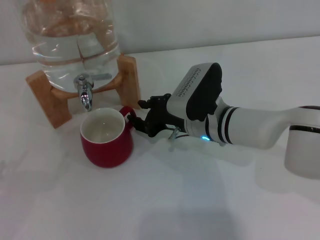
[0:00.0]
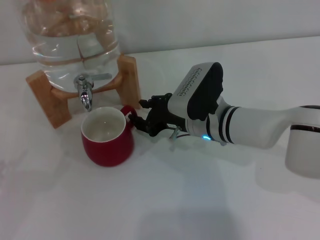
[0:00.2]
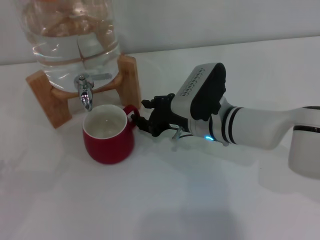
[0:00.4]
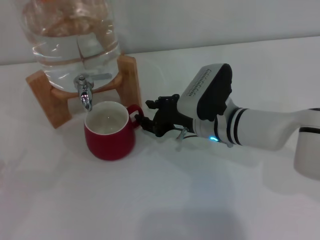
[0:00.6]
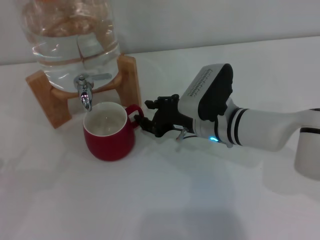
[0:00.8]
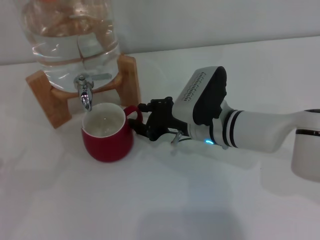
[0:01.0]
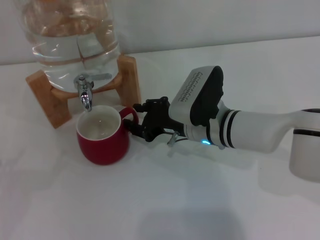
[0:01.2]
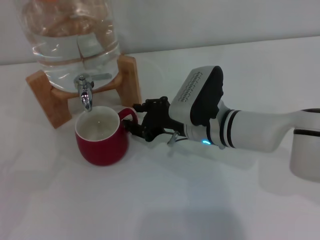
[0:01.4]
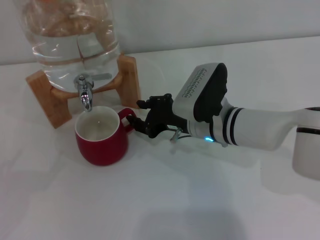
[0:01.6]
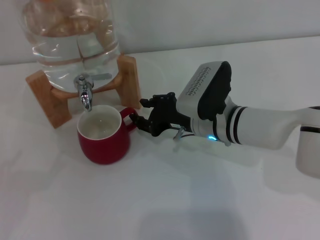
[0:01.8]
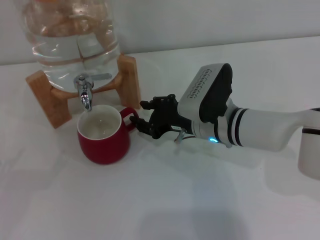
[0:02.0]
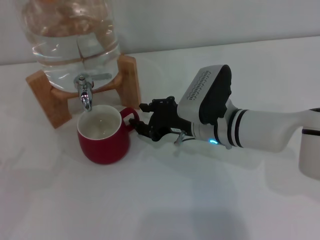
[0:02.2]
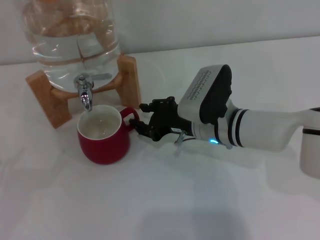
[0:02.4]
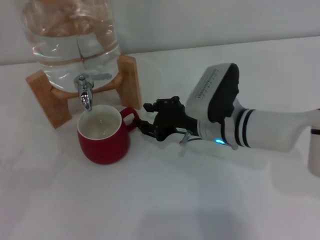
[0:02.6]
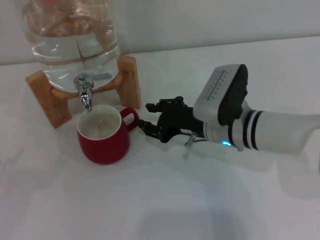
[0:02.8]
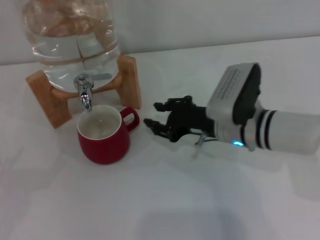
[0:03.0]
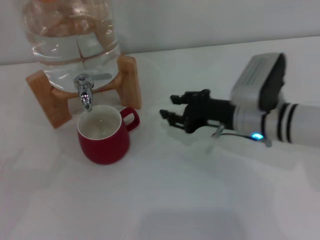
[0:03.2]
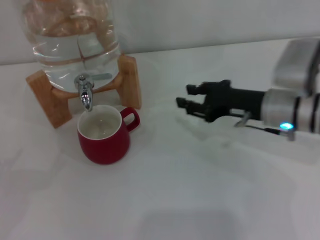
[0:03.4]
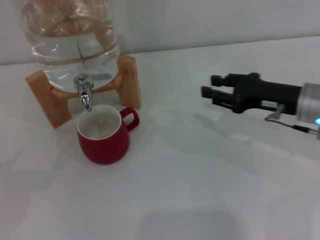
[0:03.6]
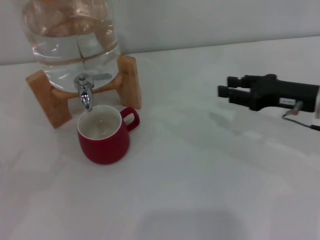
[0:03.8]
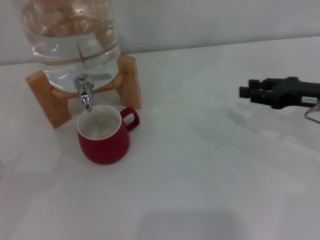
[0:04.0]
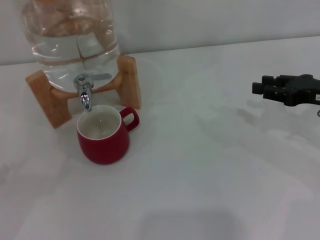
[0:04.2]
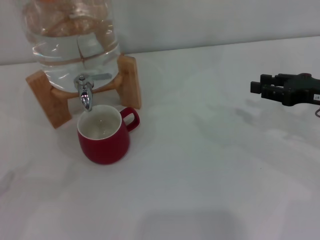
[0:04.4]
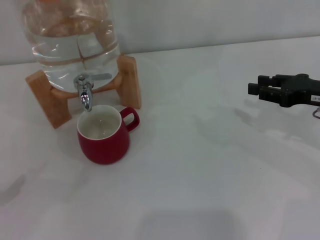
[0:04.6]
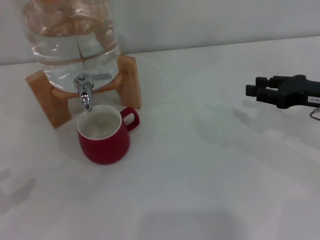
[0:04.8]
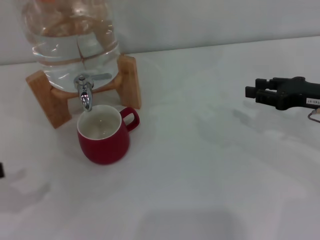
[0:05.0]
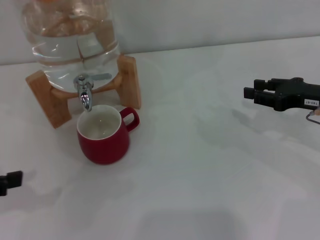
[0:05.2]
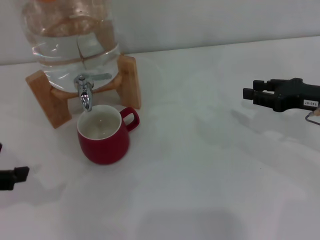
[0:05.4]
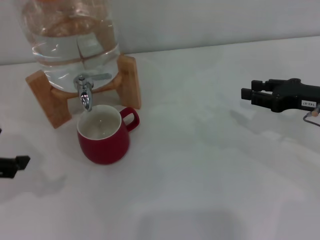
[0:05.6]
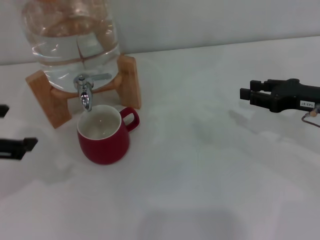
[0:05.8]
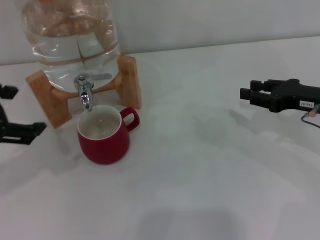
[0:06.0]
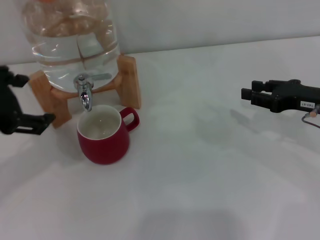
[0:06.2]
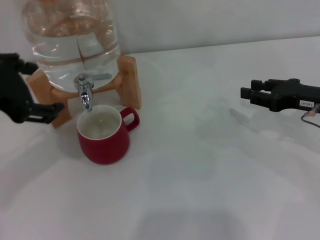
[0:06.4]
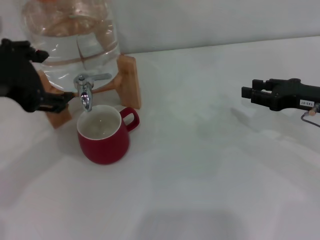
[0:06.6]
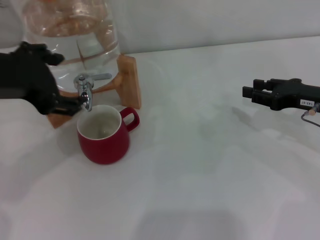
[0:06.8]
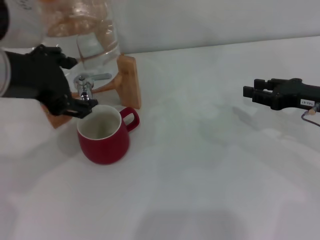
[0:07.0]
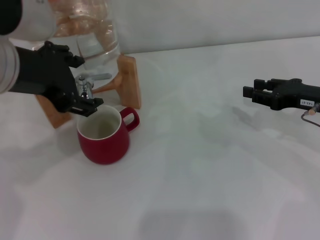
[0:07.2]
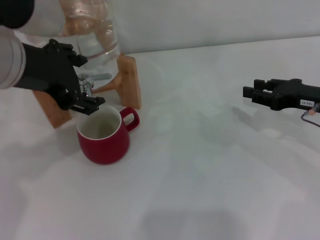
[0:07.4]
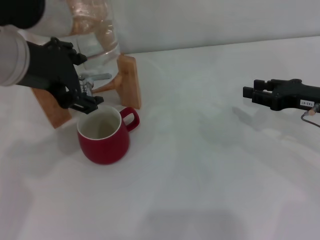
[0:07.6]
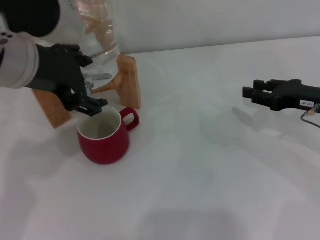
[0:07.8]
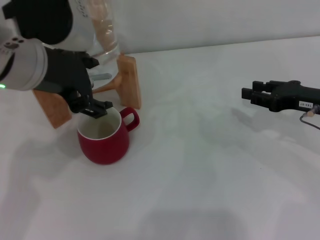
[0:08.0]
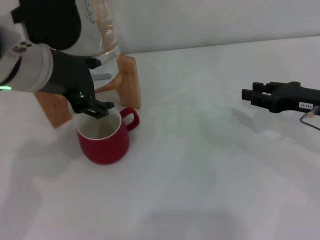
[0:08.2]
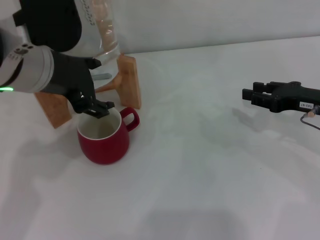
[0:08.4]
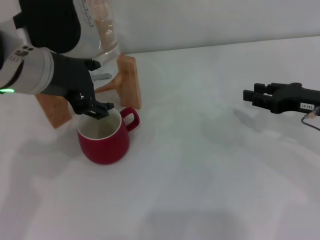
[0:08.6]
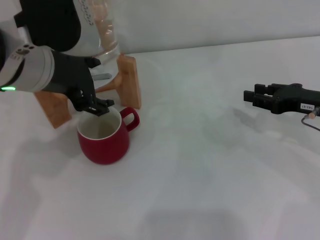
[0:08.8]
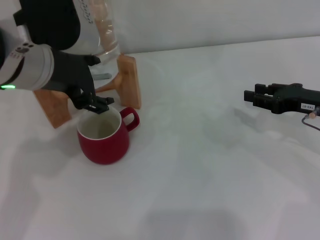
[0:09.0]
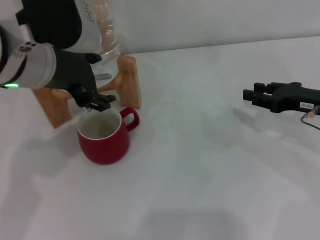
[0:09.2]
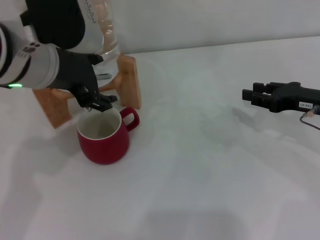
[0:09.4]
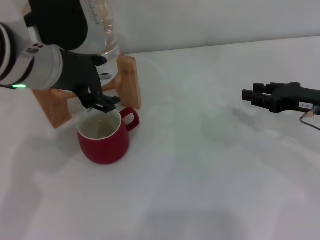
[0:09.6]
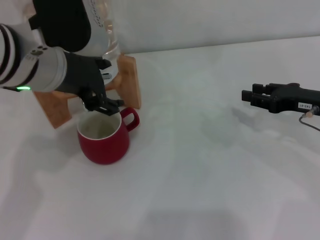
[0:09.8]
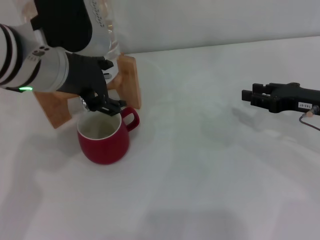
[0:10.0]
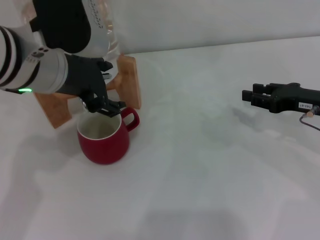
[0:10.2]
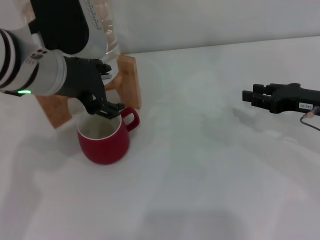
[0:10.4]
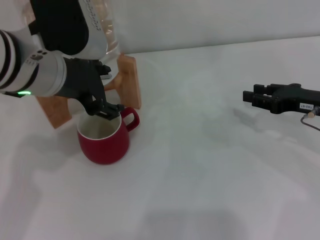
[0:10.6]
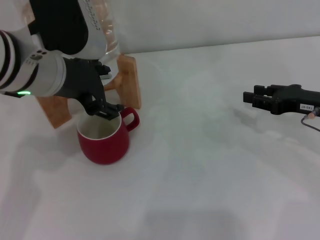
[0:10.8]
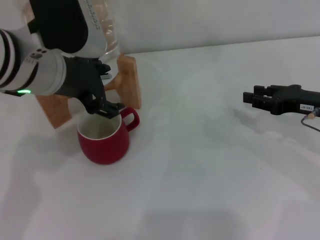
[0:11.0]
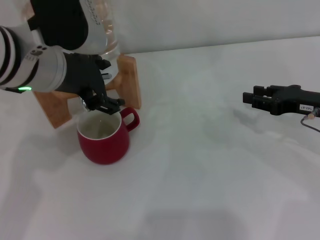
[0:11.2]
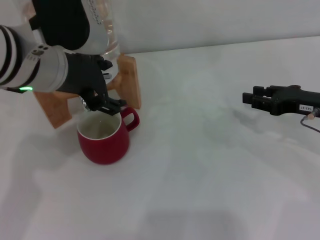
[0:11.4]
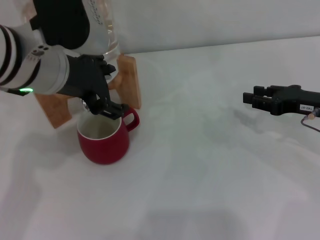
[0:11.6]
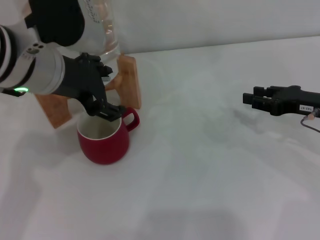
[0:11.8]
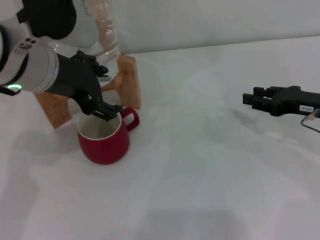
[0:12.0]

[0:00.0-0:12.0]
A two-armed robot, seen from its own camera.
Task of the whole recording: the right gripper pick up the red cup and place it horizontally under the faucet, the left gripper turn on the faucet to fill the cup, and then turn off the faucet.
Step, 0:00.0 to 0:03.0: Move the cup beneath the water dispenser nozzle with the right gripper.
0:00.0 to 0:03.0: The grippers make only small movements.
0:03.0 to 0:04.4: The right gripper goes approximately 20 cm to the right.
0:04.4 to 0:06.0: The left gripper shifts approximately 25 cm upward and to the right.
0:06.0 to 0:07.6: The left gripper heads to the right and forward, covering roughly 10 cm.
0:07.6 to 0:10.4: The grippers make only small movements.
0:10.4 to 0:12.0: The two grippers keep their place.

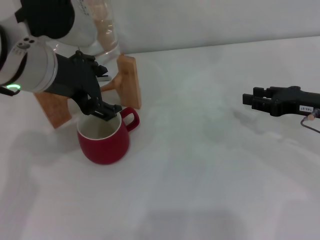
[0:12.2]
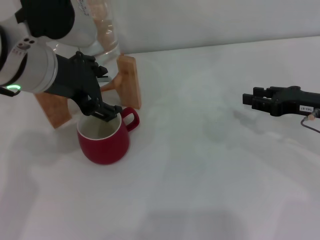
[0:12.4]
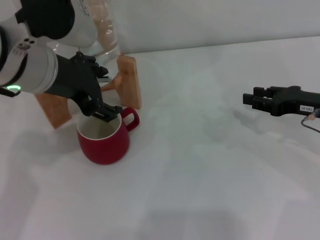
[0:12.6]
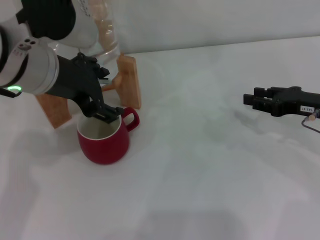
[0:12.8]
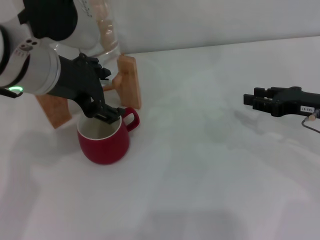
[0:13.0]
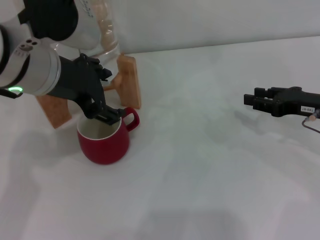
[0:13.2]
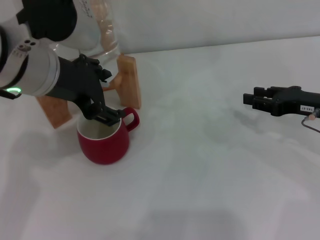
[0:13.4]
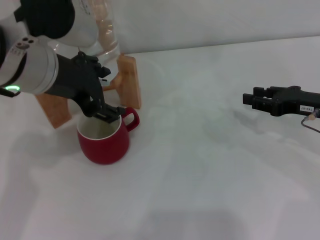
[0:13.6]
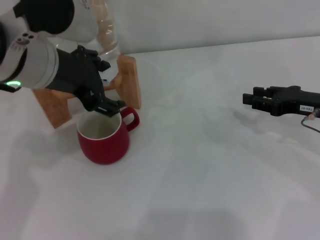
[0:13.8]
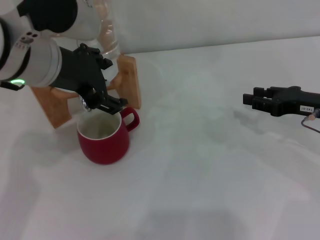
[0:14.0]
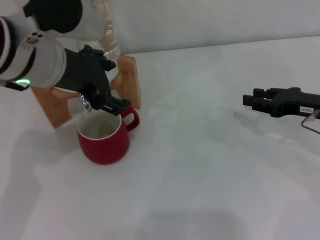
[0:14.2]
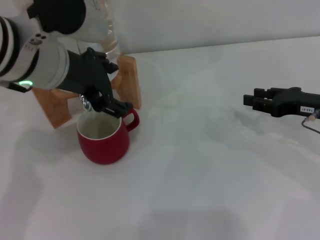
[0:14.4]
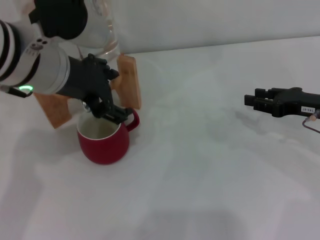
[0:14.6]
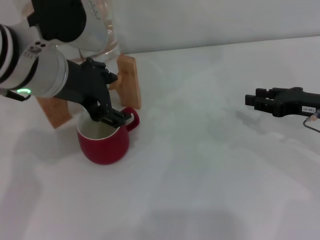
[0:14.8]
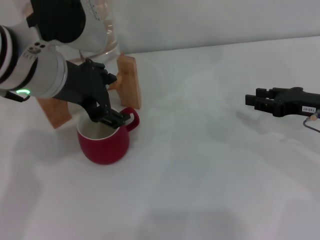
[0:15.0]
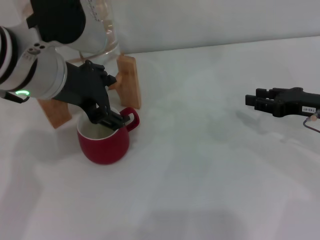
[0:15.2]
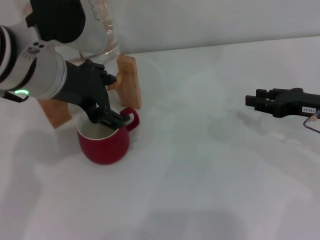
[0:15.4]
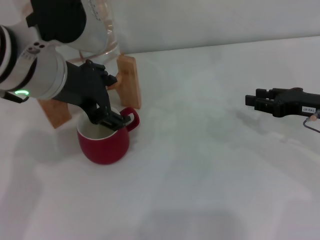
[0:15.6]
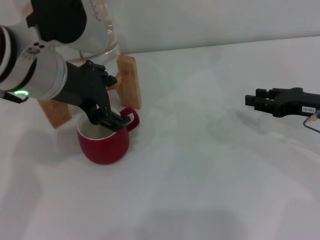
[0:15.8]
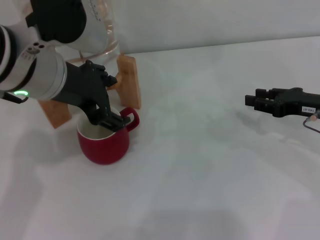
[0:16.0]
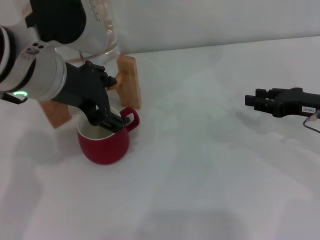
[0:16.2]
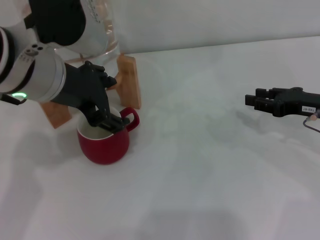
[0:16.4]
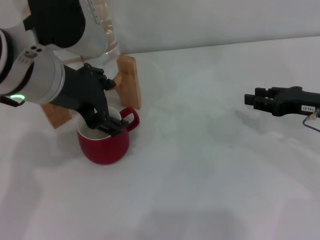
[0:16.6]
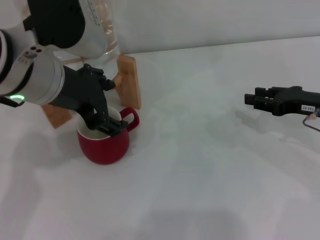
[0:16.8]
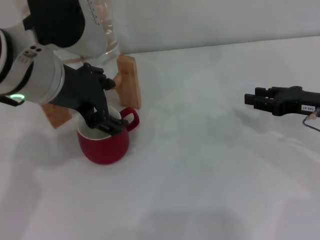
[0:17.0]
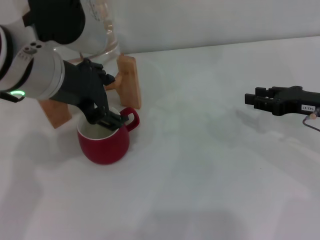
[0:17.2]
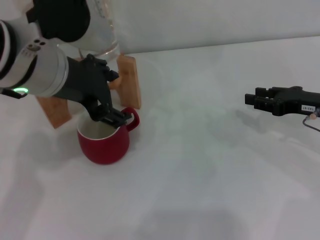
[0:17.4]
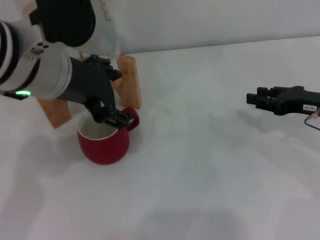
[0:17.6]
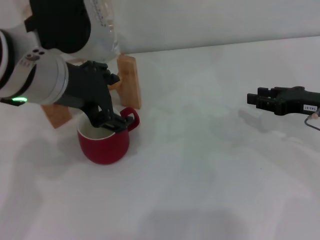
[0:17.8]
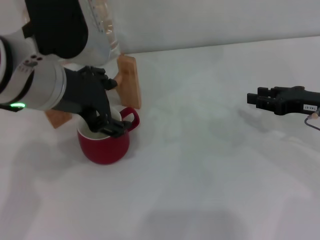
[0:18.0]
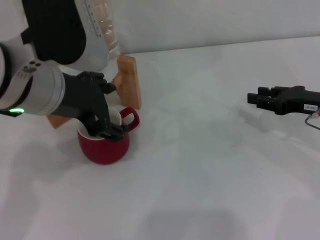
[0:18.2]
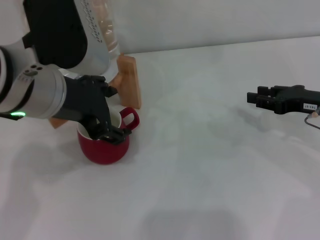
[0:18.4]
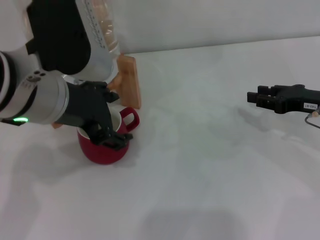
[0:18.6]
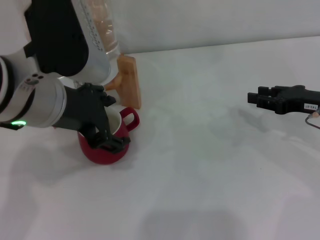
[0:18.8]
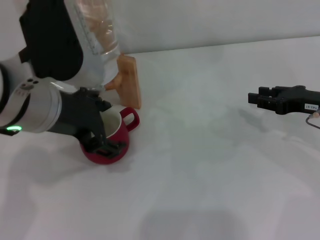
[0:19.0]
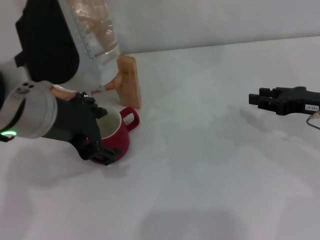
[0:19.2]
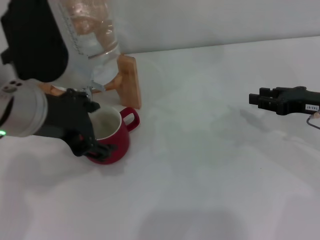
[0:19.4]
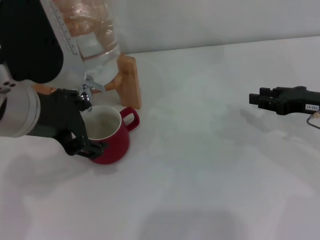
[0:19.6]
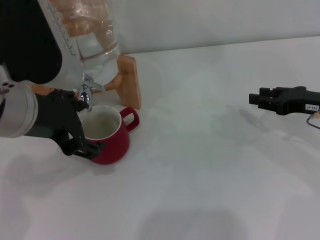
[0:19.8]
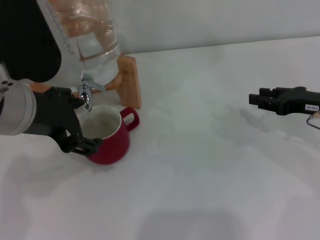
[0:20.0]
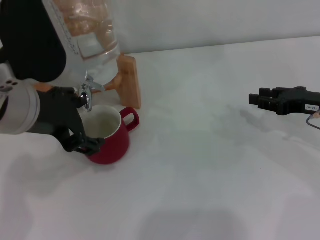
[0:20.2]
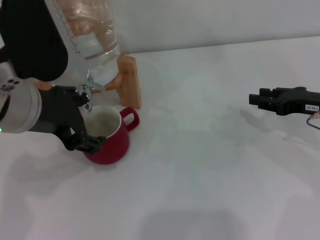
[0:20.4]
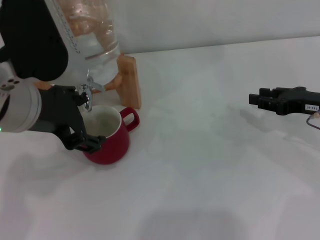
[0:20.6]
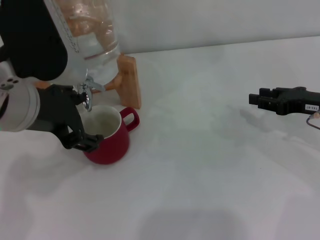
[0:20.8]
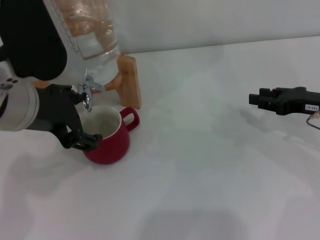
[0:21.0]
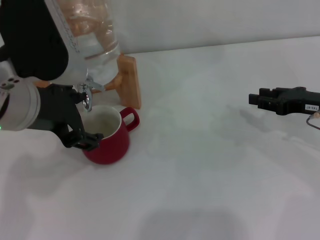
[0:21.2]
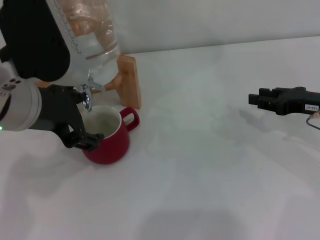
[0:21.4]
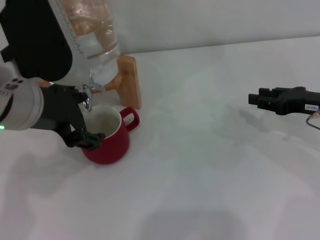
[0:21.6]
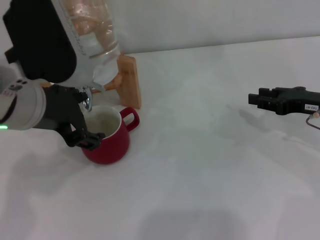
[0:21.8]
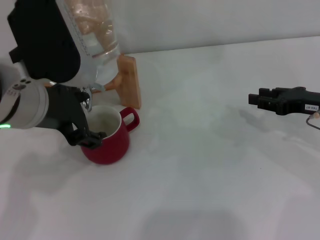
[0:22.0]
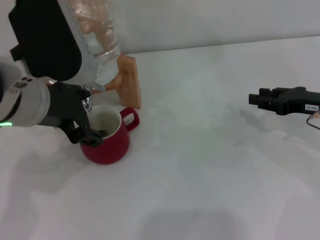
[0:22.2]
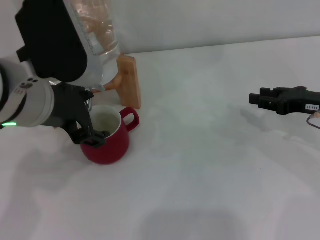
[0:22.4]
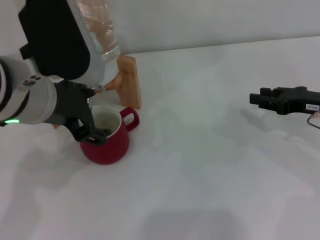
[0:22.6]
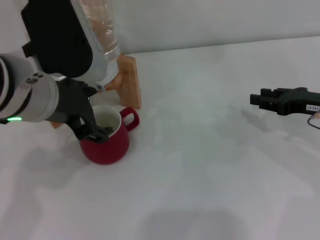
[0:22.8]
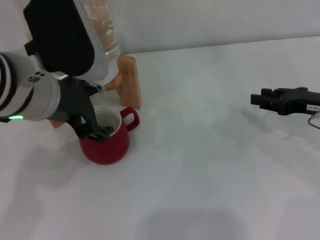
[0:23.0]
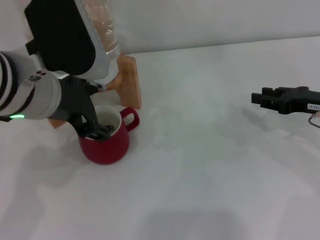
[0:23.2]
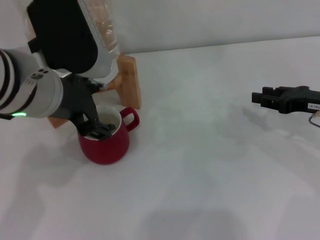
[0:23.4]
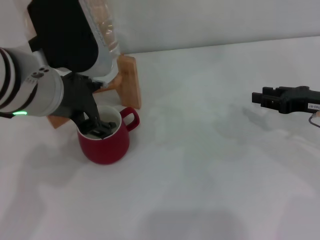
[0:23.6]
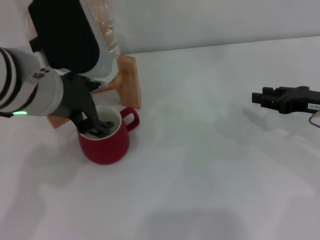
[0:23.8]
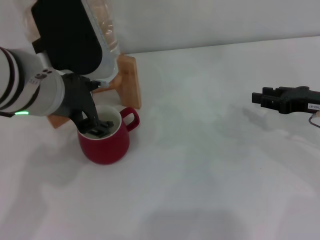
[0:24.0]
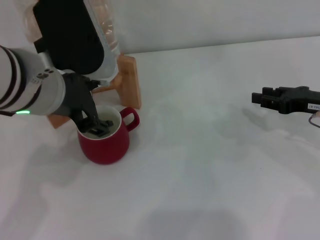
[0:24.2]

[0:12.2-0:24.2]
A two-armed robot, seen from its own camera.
Task of the whole recording: the right gripper pick up the red cup and place it horizontally under the faucet, the left gripper turn on the faucet to fill the cup, and then turn off the faucet.
0:12.2 to 0:15.2: The two grippers keep their place.
0:15.2 to 0:16.6: Both grippers stay put.
0:16.6 to 0:19.8: The grippers make only small movements.
0:19.8 to 0:21.2: Both grippers stay about where they are.
0:21.2 to 0:22.6: The grippers make only small movements.
0:22.6 to 0:24.2: Both grippers stay about where they are.
